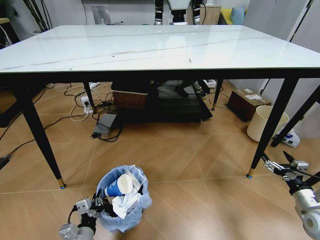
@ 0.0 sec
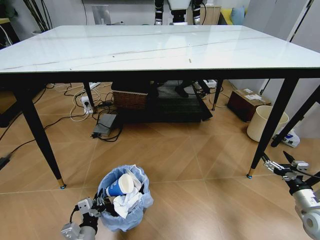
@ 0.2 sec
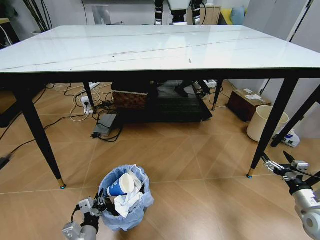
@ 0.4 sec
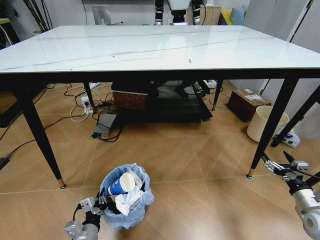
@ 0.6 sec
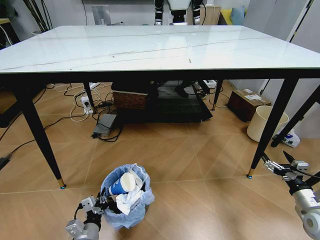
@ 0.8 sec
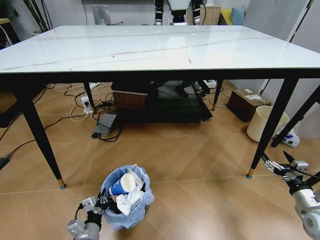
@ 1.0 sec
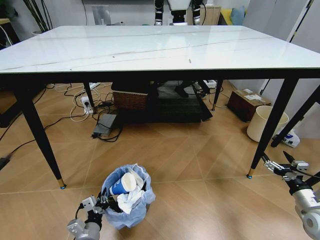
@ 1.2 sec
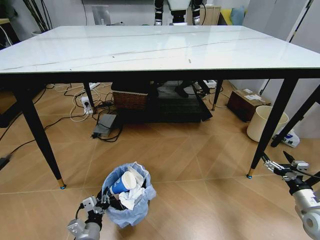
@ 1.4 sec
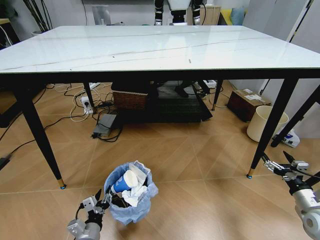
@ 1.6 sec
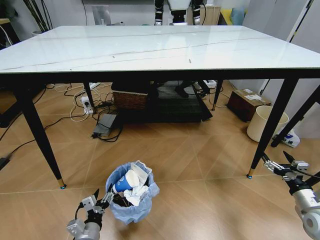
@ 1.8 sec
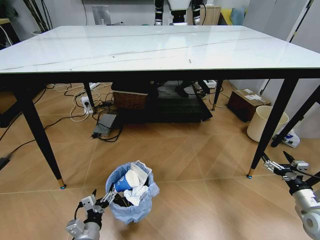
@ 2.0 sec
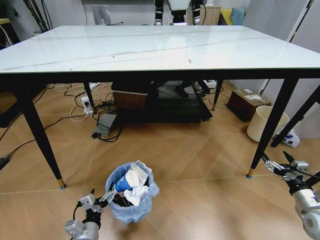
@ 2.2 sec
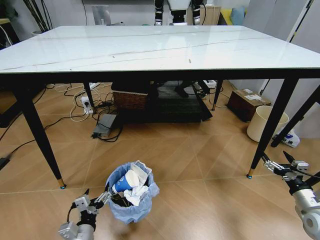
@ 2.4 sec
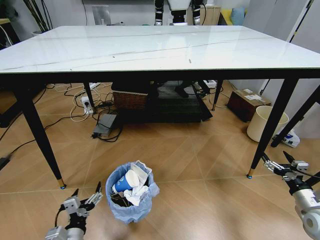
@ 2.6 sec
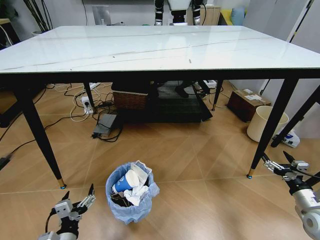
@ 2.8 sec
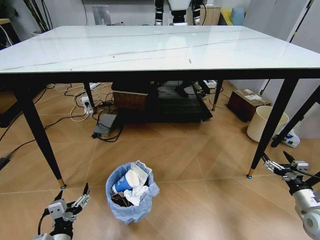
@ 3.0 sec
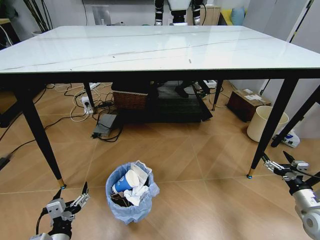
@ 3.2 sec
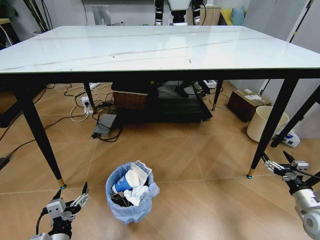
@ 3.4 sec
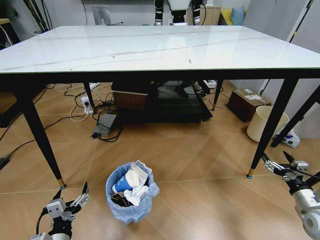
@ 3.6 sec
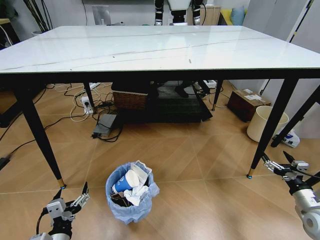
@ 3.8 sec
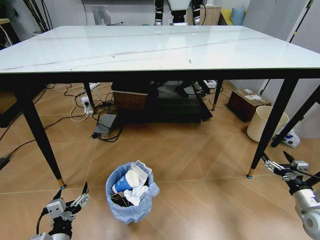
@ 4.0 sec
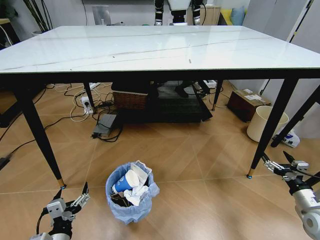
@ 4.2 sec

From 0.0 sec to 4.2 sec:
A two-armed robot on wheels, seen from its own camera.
Task of the whole recording: Pick up the trash bin and place the trash from the table into it.
From 0.0 sec to 1.4 sec: There are only small adjustments of the grippers.
From 1.4 sec to 2.8 sec: The left gripper heads upward, covering approximately 5 cm, and opens its fingers.
From 2.8 sec to 4.2 sec: The grippers make only small movements.
